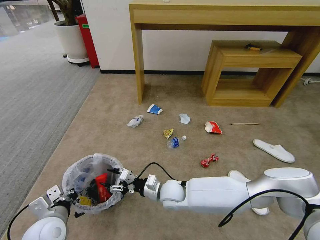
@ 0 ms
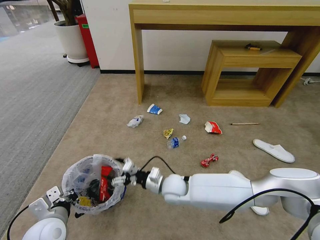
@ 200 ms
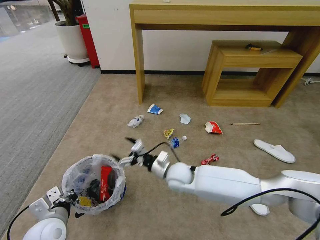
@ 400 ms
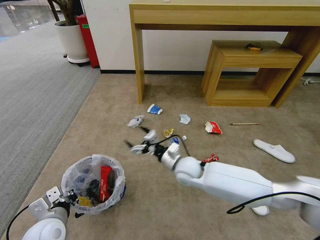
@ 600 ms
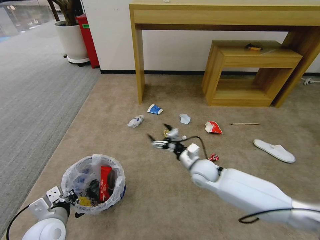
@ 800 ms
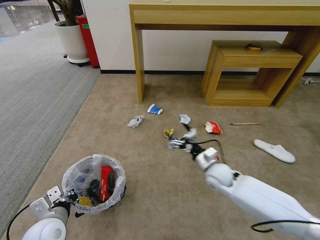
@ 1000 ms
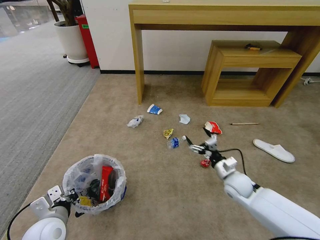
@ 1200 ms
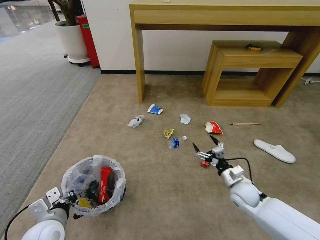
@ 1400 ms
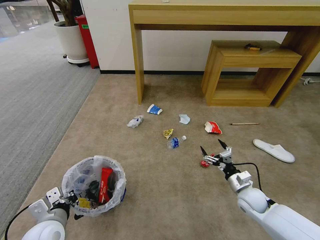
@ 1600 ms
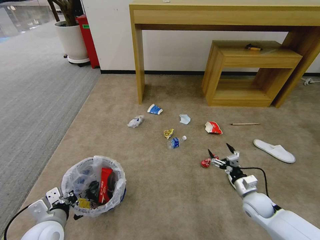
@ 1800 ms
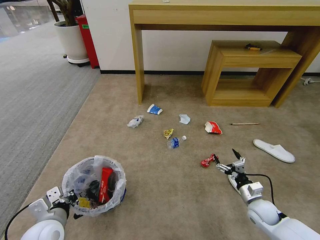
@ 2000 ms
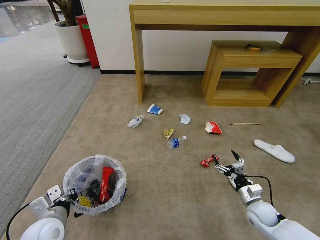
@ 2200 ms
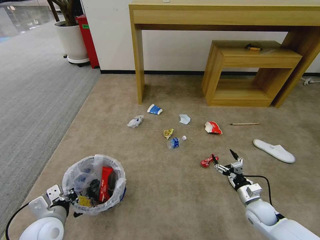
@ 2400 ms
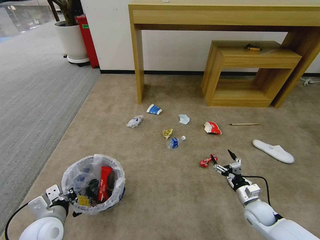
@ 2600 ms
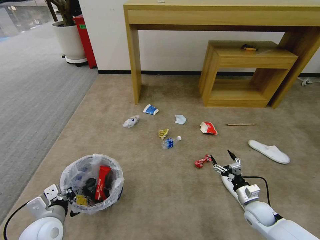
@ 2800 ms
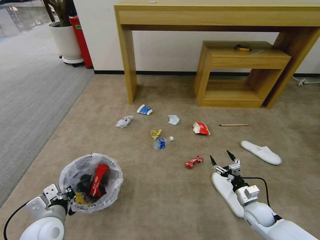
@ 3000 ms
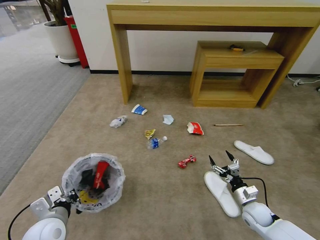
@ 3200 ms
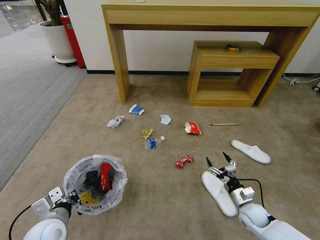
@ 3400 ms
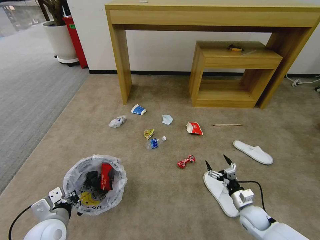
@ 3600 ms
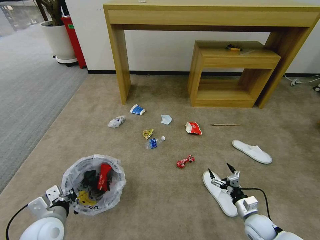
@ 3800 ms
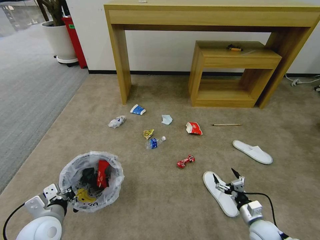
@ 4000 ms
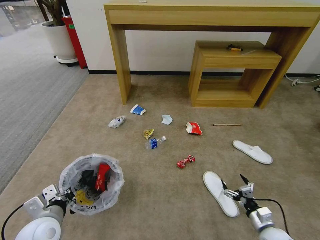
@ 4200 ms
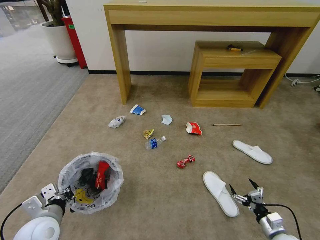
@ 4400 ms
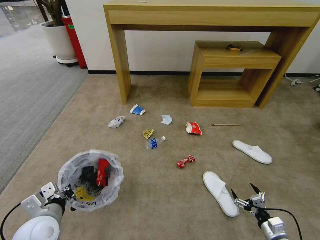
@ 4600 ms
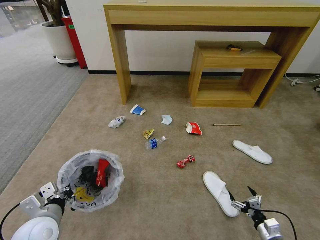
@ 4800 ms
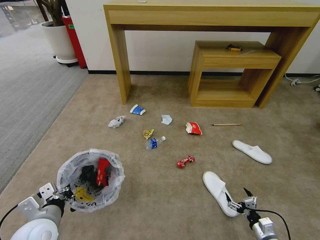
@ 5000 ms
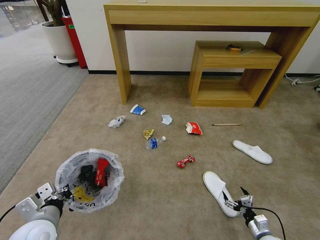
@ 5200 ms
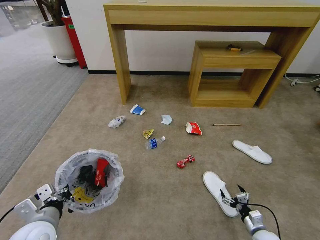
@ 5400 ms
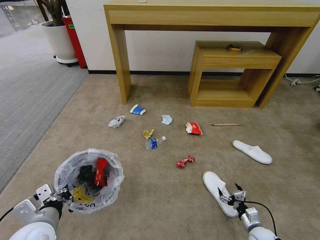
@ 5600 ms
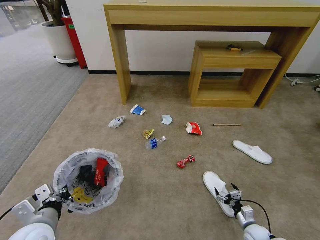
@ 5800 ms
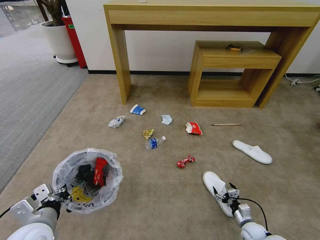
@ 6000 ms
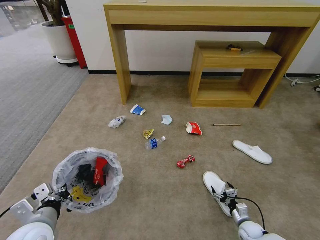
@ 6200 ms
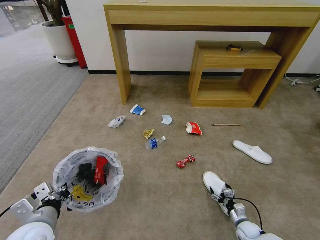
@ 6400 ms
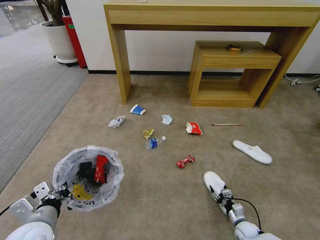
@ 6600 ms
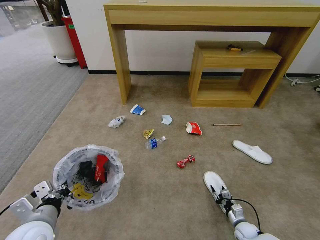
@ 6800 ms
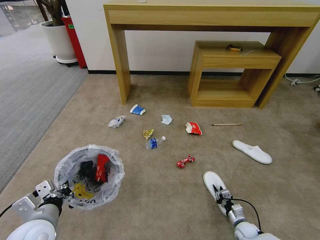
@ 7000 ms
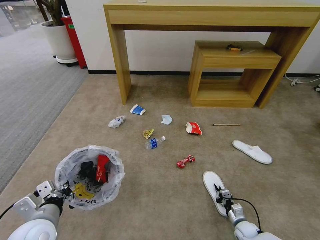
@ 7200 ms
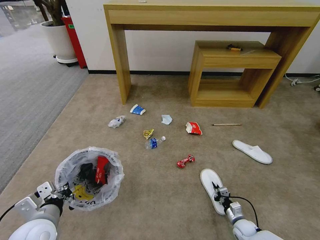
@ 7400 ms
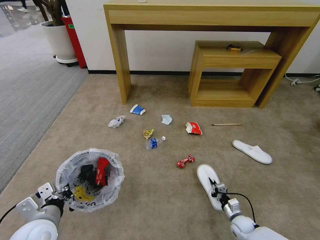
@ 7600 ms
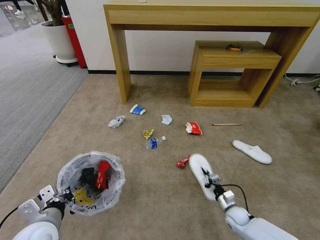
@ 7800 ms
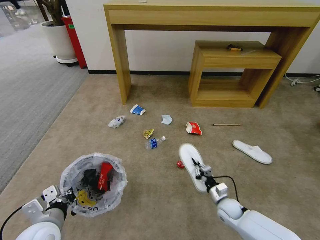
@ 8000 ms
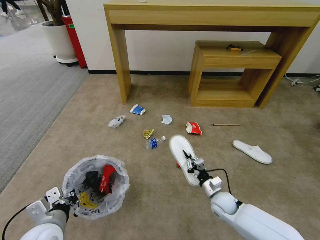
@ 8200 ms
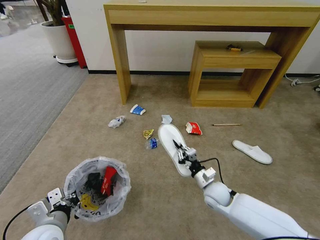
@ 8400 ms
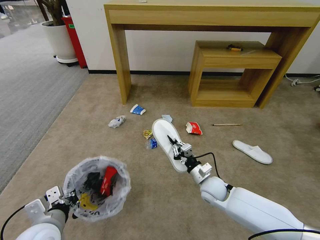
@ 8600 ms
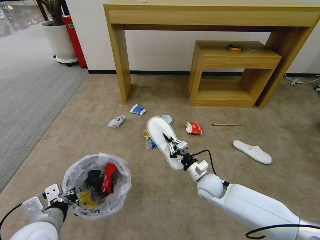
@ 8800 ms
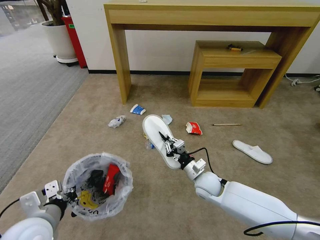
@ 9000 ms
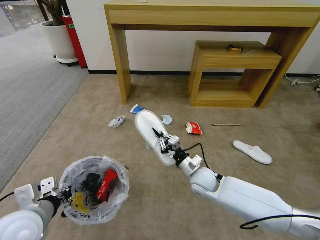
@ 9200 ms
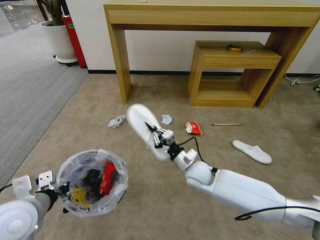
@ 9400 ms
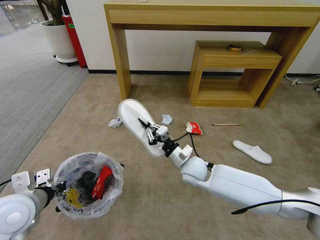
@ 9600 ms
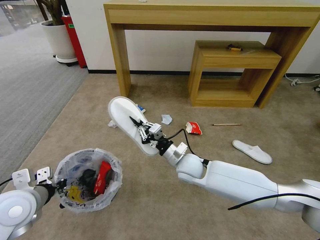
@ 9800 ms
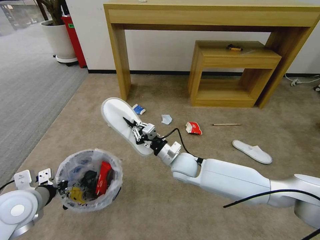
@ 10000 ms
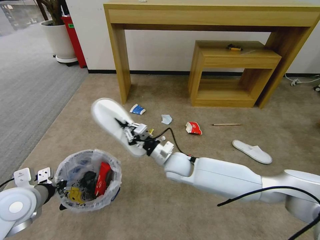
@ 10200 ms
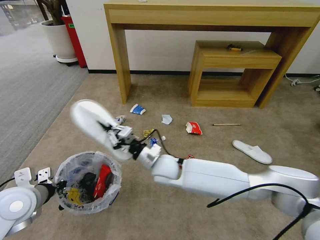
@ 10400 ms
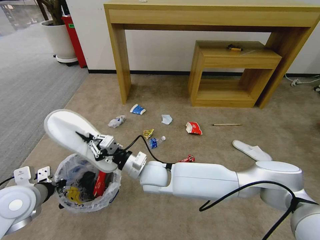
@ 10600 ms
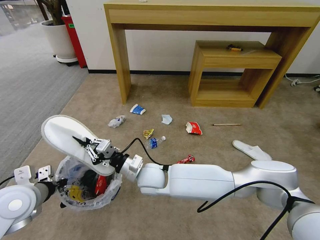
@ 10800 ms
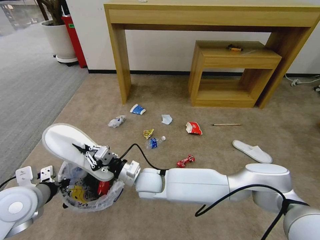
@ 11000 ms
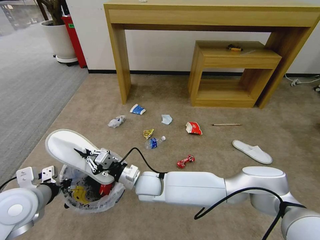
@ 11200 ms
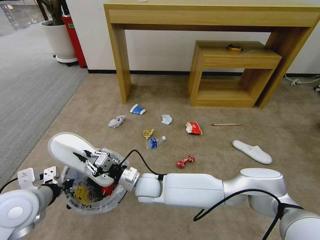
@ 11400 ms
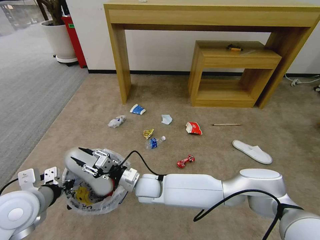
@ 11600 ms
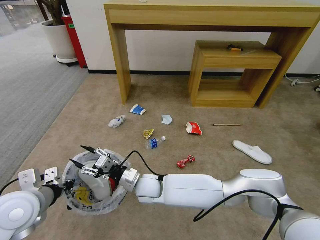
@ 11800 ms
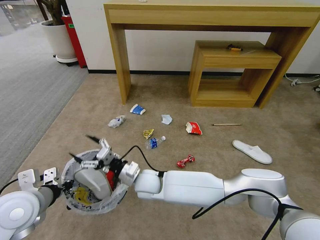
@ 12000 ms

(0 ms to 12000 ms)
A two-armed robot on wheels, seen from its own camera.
Task of the whole recording: Pick up the trash bin and place the garbage on the floor into it.
0 ms - 1600 ms: The right gripper heads to the right, covering about 30 cm, and opens.
1600 ms - 3000 ms: The right gripper shifts by some 5 cm.
3000 ms - 4400 ms: The right gripper goes about 10 cm backward and to the right.
4400 ms - 6000 ms: The right gripper goes roughly 10 cm downward and forward.
6000 ms - 7600 ms: The right gripper closes its fingers.
7600 ms - 9000 ms: The right gripper travels upward, to the left and forward by some 30 cm.
9000 ms - 10400 ms: The right gripper heads to the left and upward, covering about 20 cm, while the left gripper is displaced forward and to the left by about 10 cm.
10400 ms - 12000 ms: The right gripper is displaced to the left and downward by approximately 10 cm, and opens up.

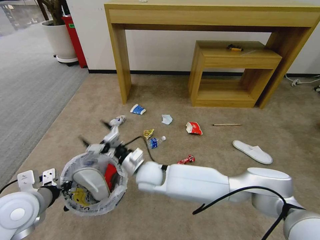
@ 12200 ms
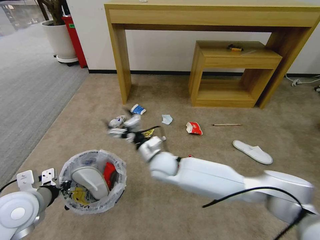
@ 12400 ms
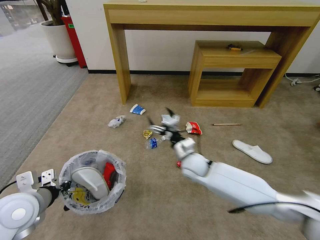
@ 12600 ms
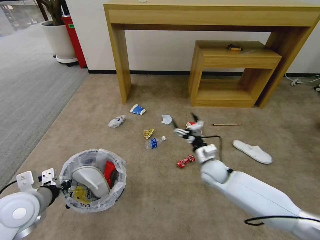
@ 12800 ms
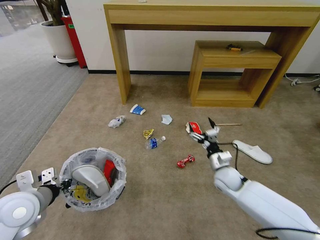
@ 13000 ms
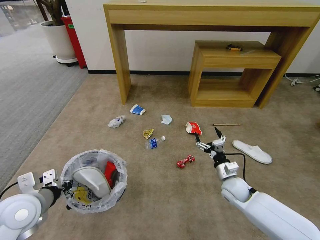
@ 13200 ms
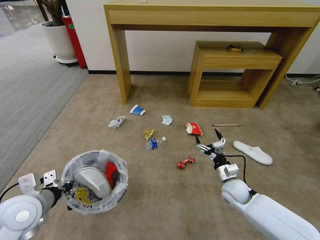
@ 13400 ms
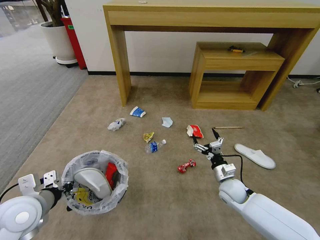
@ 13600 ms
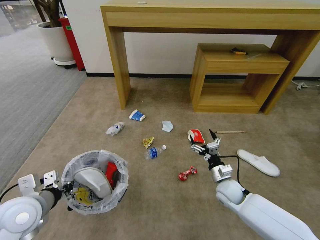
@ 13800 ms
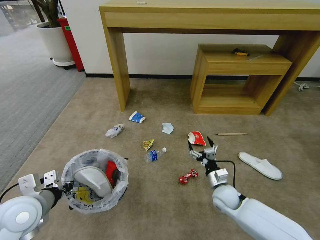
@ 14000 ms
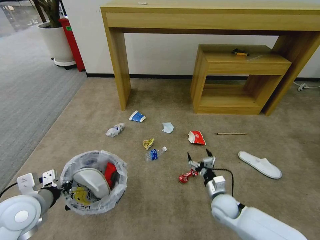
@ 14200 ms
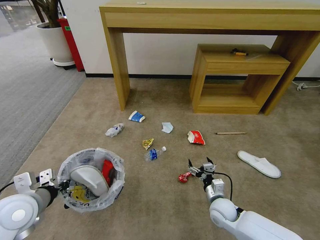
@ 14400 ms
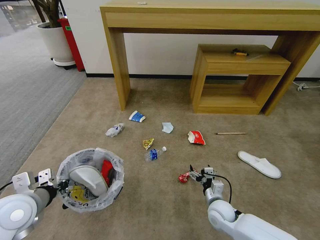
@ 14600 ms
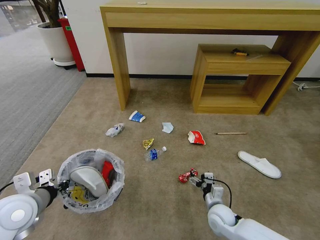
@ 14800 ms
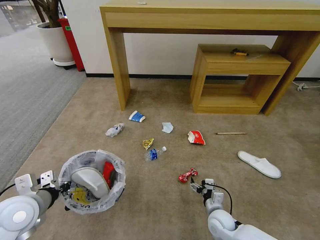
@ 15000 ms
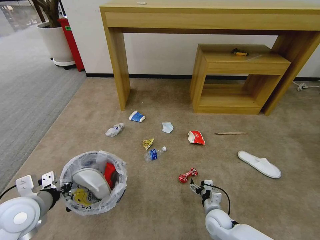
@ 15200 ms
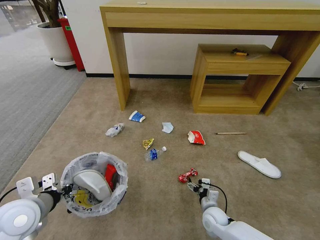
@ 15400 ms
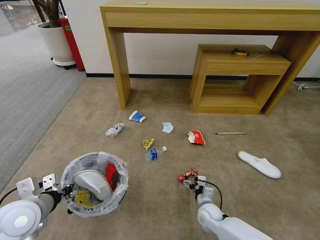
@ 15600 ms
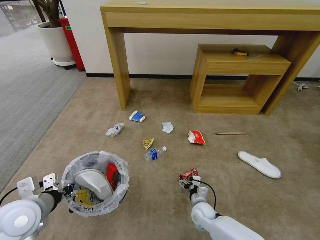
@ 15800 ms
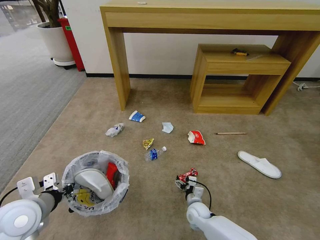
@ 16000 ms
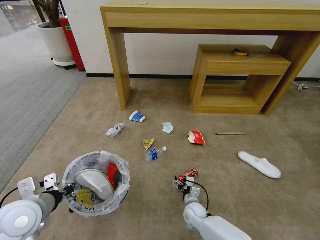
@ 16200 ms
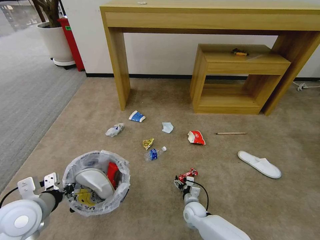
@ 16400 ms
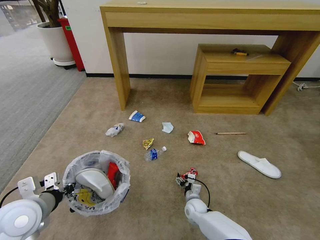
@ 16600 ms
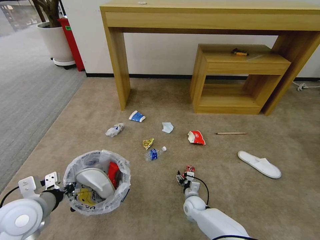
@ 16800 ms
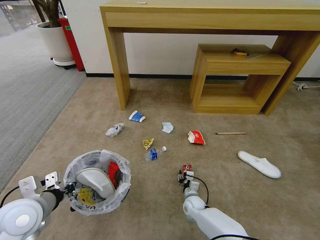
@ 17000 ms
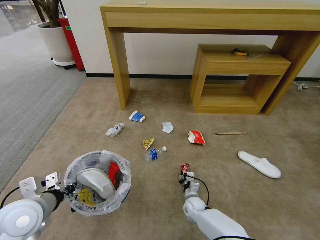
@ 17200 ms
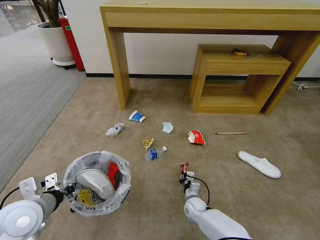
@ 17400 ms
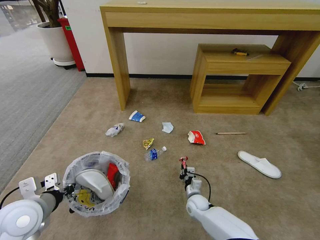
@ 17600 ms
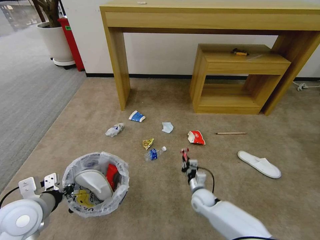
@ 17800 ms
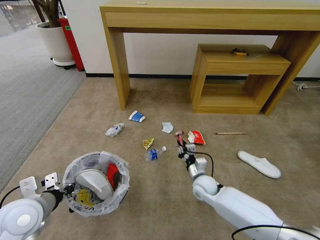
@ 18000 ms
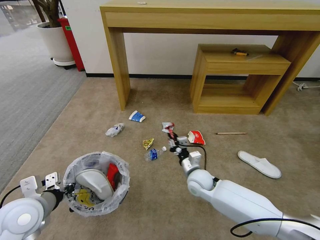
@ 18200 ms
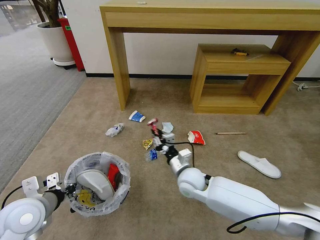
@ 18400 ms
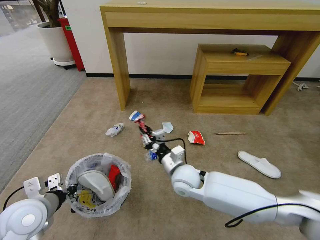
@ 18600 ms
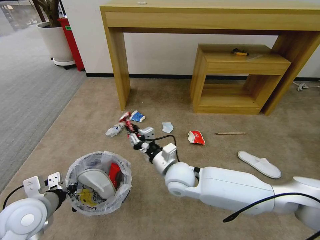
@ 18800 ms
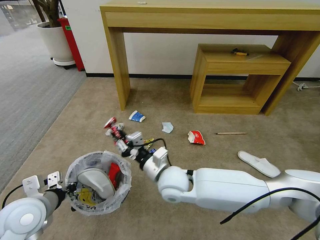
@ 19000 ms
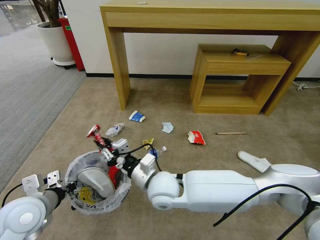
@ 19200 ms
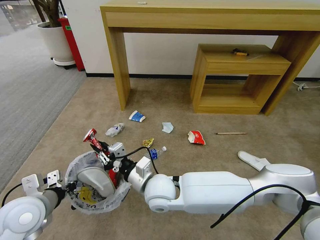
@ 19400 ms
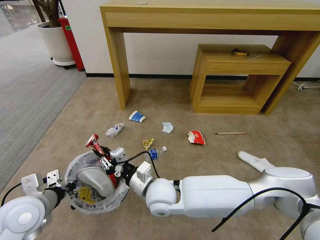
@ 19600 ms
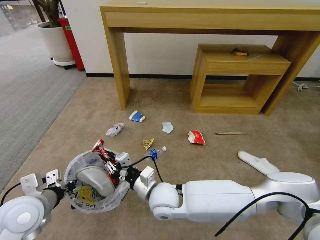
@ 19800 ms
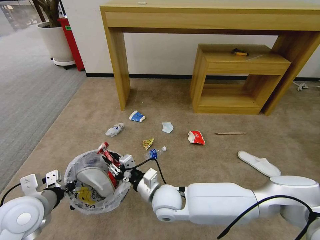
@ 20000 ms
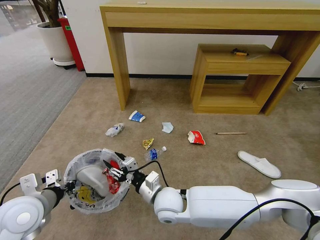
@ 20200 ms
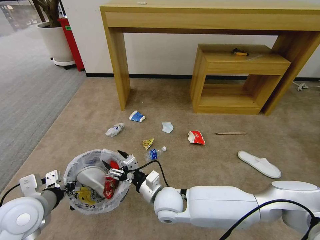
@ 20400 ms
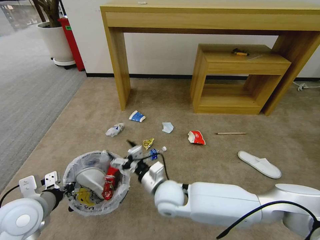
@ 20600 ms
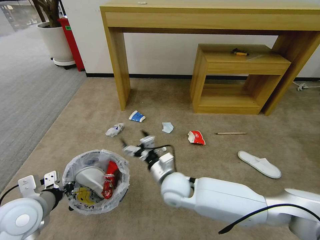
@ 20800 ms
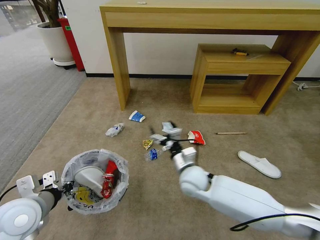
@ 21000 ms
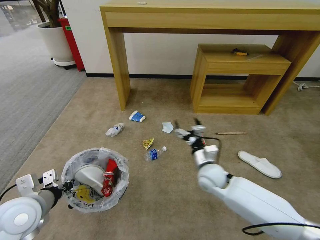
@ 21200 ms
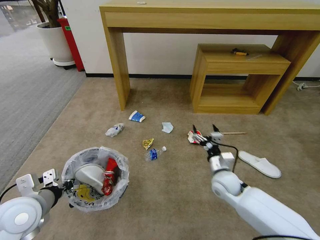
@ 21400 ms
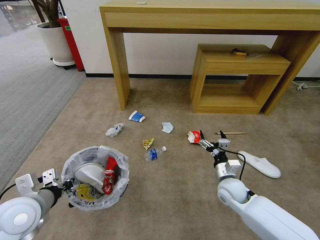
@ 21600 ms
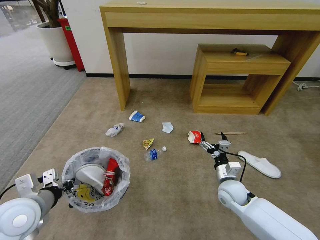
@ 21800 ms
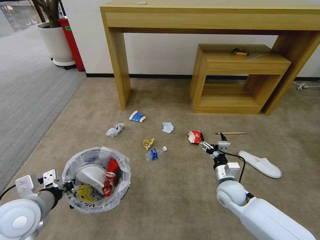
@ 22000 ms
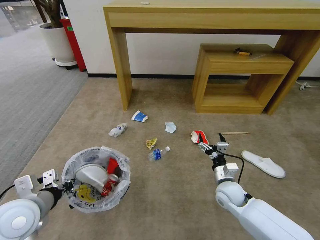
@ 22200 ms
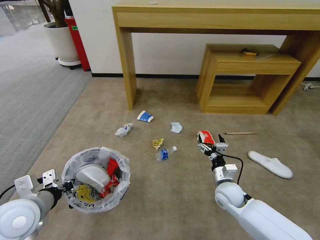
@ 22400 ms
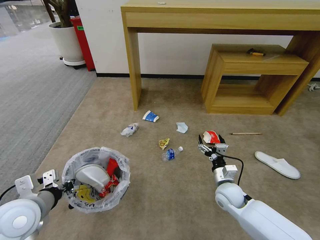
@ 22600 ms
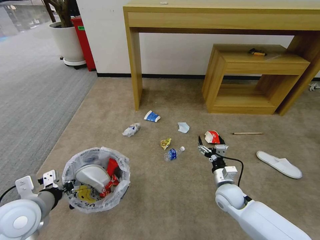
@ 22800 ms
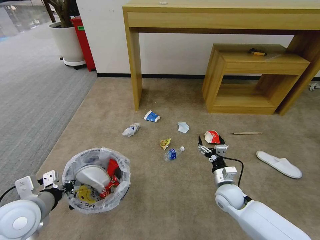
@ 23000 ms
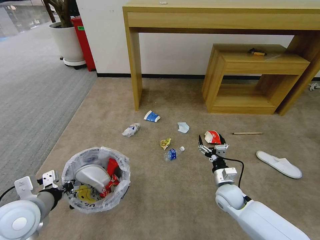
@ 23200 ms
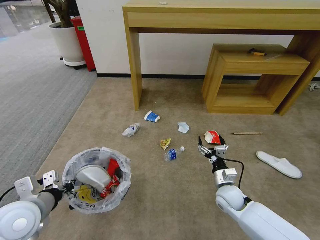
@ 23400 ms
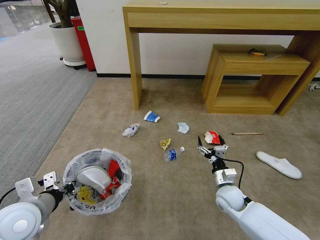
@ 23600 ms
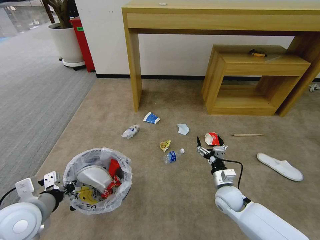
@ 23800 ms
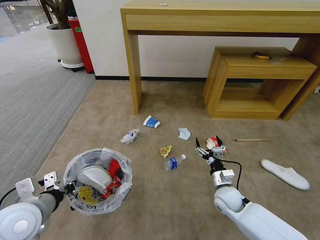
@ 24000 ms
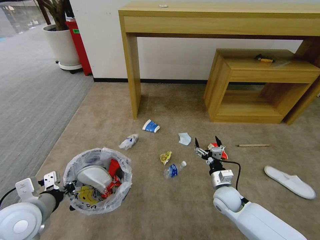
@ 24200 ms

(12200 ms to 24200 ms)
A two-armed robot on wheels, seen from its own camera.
Task of the whole recording: Pick up the trash bin and place the garbage on the floor into it.
12200 ms - 13800 ms: The right gripper travels to the right by approximately 30 cm.
13800 ms - 15200 ms: The right gripper is displaced downward and backward by about 10 cm.
15200 ms - 16600 ms: The right gripper heads to the left, downward and forward, covering approximately 10 cm.
16600 ms - 18200 ms: The right gripper heads upward, covering some 10 cm, and closes its fingers.
18200 ms - 19800 ms: The right gripper travels to the left, upward and backward by approximately 25 cm.
19800 ms - 21200 ms: The right gripper heads to the right and forward, covering approximately 20 cm, and opens up.
21200 ms - 22600 ms: The right gripper travels to the right and downward by approximately 10 cm.
